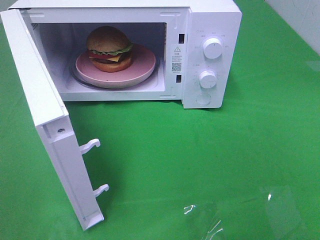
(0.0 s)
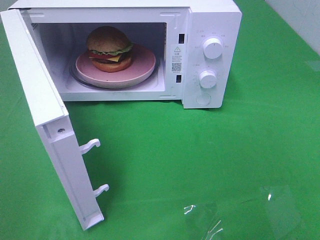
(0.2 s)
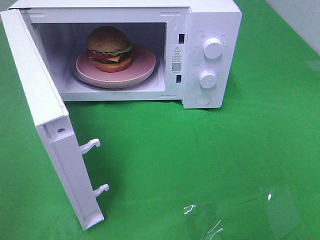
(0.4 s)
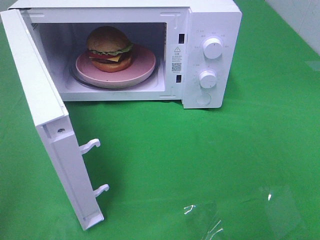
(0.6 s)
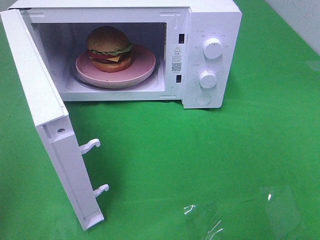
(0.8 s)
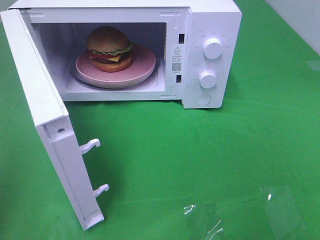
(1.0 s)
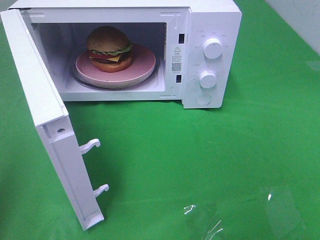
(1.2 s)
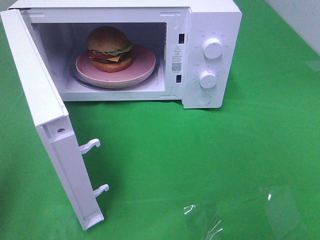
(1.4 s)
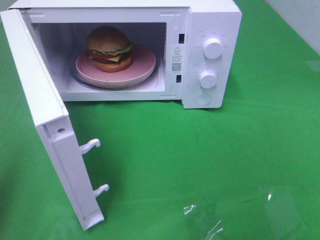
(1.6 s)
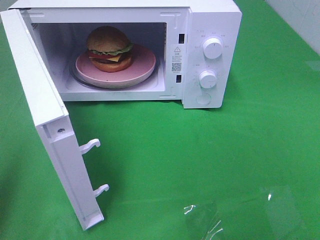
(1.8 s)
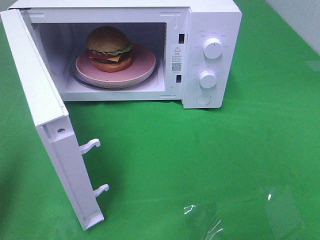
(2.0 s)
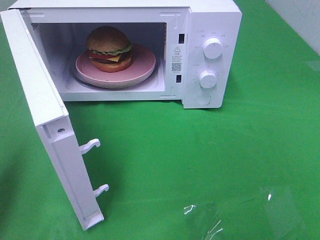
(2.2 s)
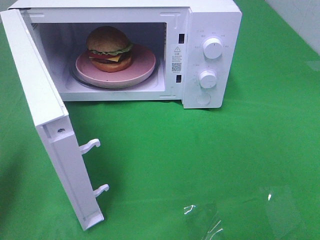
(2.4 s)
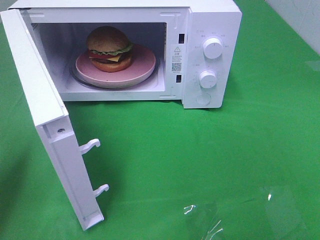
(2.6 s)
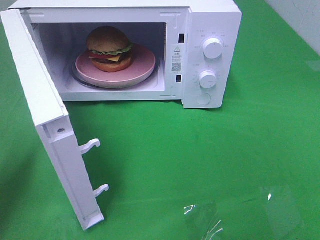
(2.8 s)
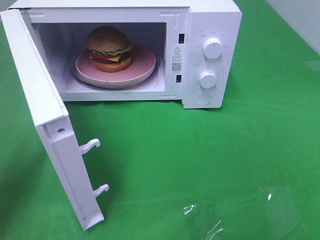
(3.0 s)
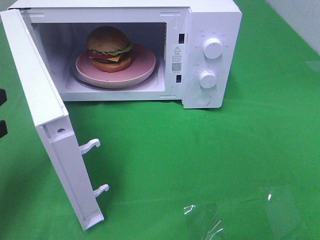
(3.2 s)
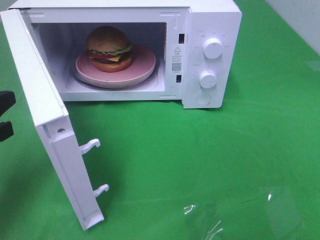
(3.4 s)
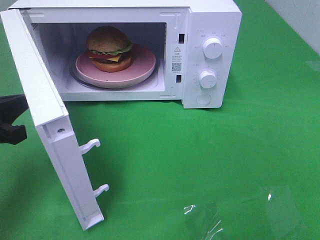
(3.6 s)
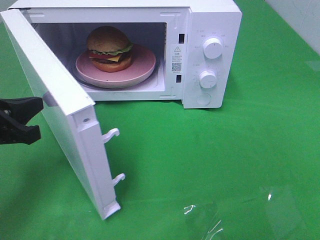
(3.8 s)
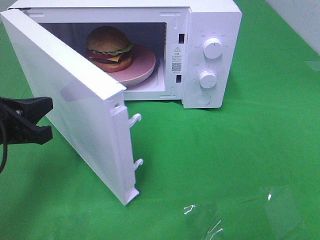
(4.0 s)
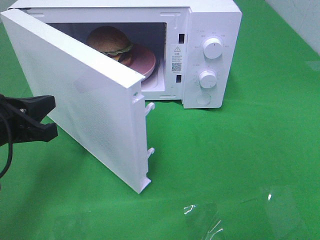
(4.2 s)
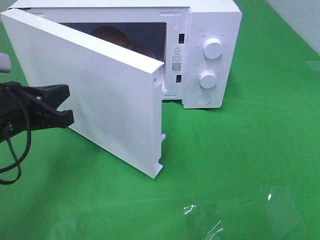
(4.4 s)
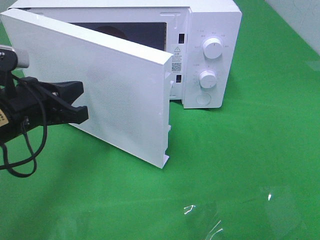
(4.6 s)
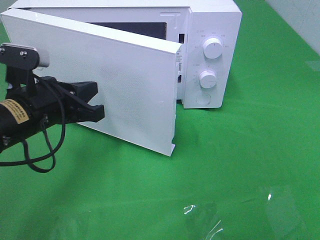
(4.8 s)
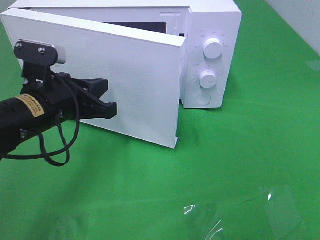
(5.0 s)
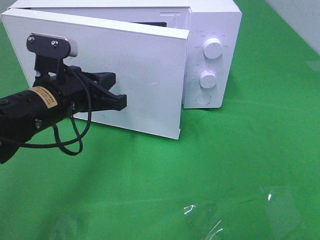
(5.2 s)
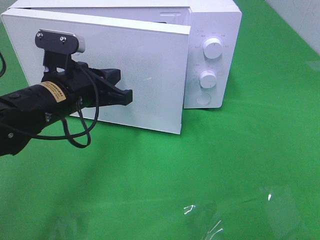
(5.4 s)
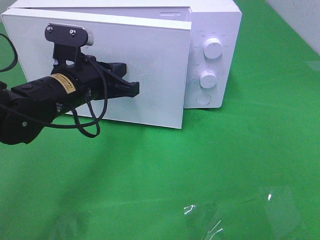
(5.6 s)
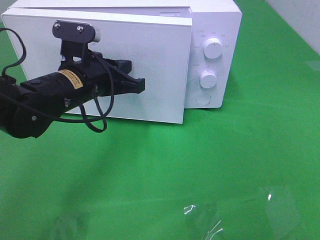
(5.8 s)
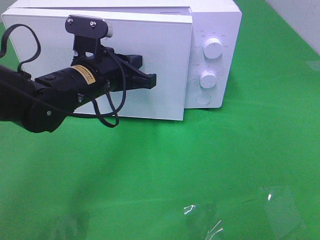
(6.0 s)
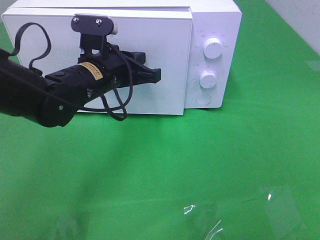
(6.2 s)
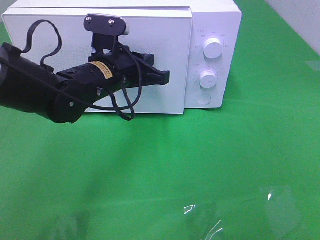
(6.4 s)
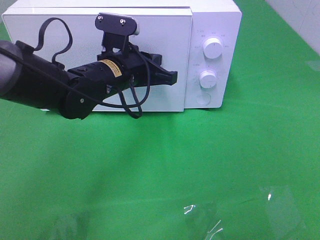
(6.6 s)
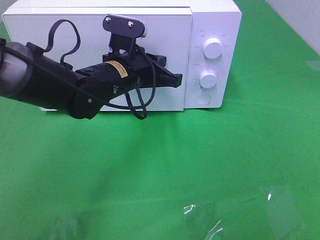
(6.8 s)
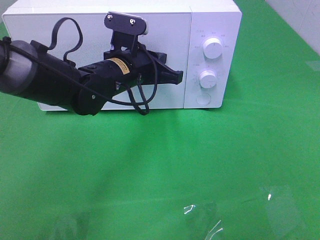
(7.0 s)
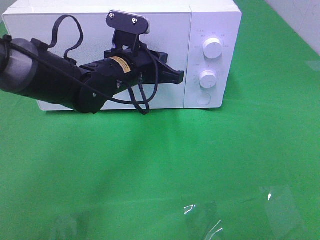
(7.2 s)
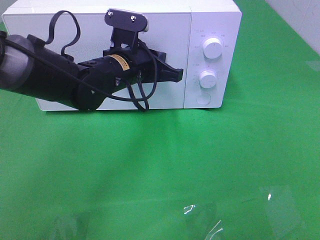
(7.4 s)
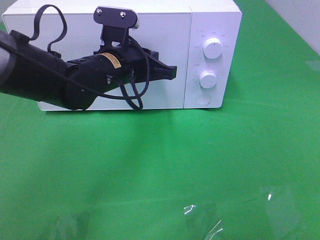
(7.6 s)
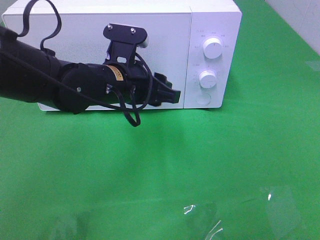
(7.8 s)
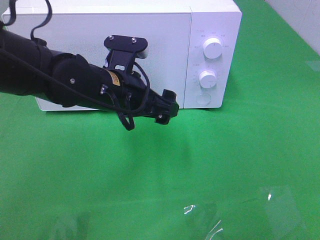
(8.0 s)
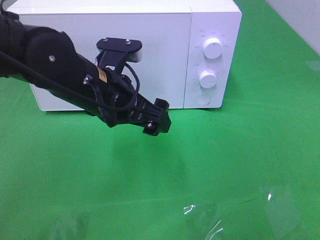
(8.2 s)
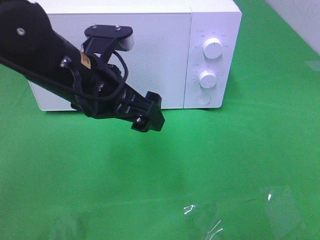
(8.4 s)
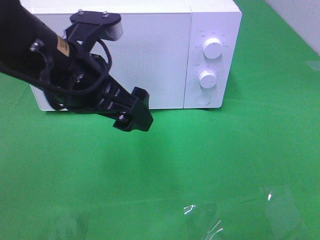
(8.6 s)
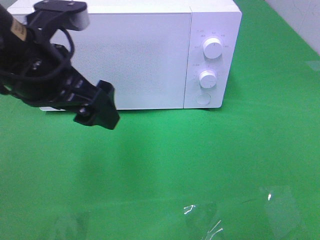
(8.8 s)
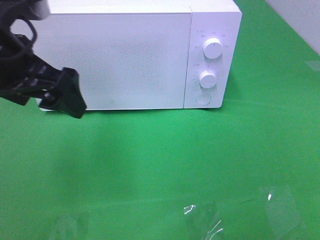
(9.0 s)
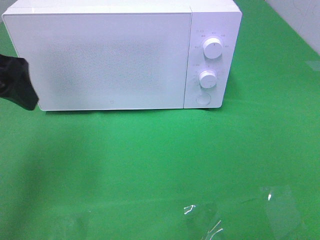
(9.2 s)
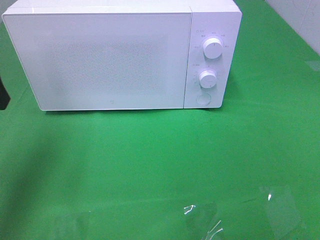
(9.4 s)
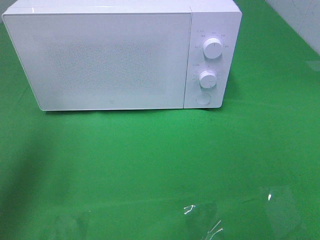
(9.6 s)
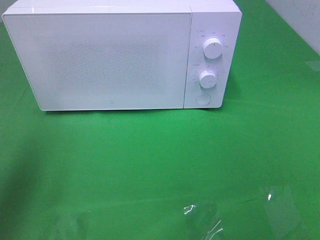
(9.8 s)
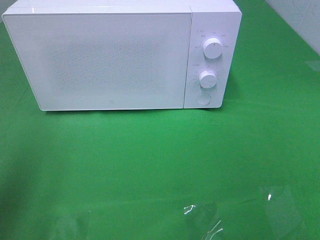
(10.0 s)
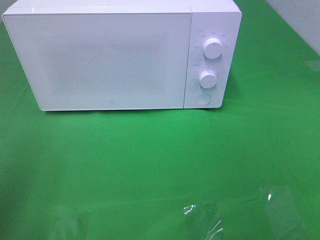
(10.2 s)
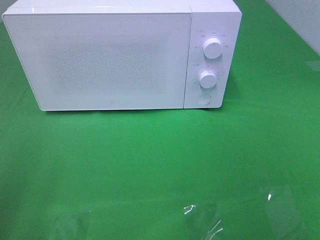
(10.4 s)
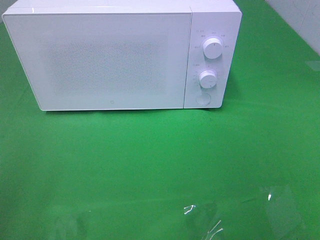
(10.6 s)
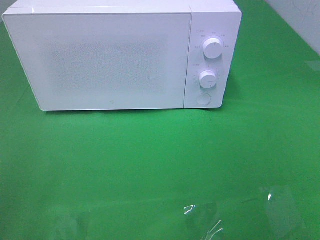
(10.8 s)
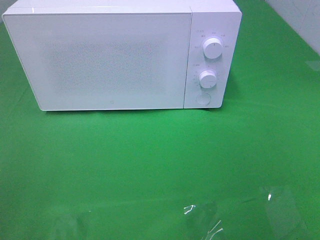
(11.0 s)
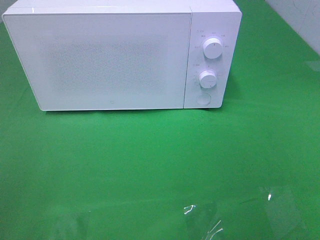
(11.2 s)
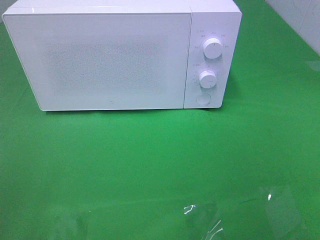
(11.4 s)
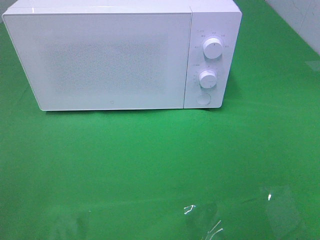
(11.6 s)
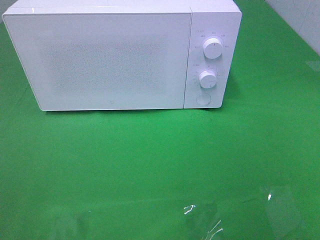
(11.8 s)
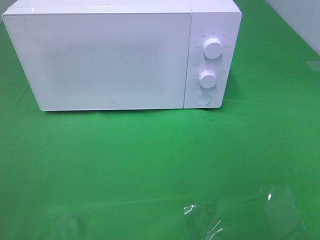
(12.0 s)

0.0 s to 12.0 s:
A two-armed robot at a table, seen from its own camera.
Task of the whole recording: Heat the burger.
Step, 0.0 to 7.8 s: Left hand: close the microwave door.
1.6 to 3.0 s: The left gripper travels forward and downward by approximately 10 cm.
3.0 to 4.4 s: The left gripper goes approximately 10 cm to the right.
4.4 to 6.0 s: The left gripper goes approximately 15 cm to the right and forward.
6.0 to 7.6 s: The grippers move only a little.
7.6 to 9.0 s: The left gripper travels to the left, upward and backward by about 20 cm, and opens up.
9.0 to 10.4 s: The left gripper heads backward and to the left, covering roughly 20 cm.

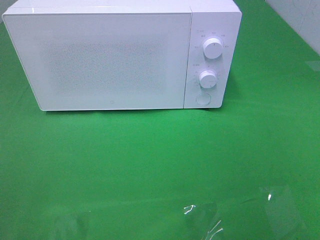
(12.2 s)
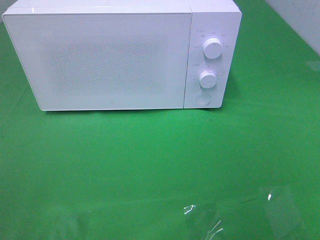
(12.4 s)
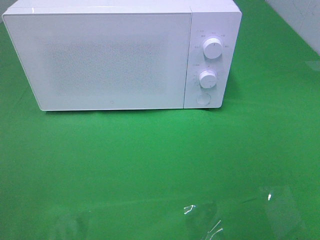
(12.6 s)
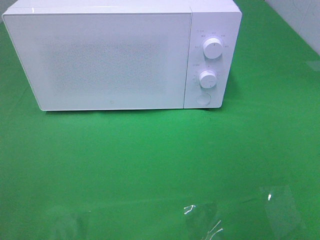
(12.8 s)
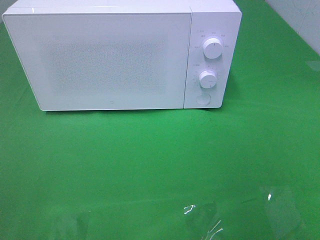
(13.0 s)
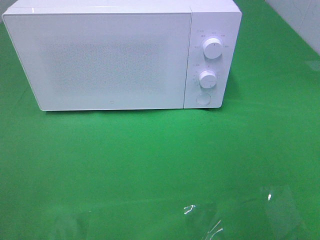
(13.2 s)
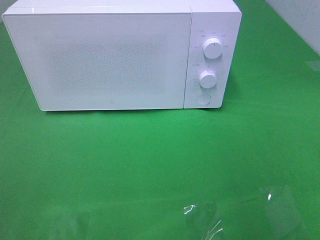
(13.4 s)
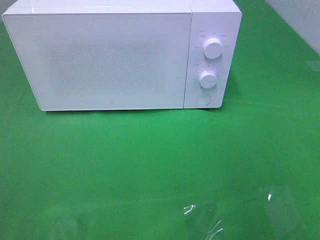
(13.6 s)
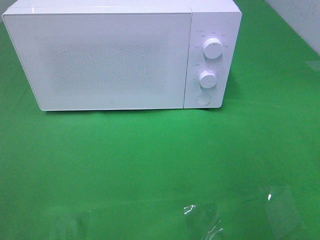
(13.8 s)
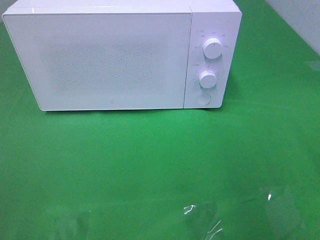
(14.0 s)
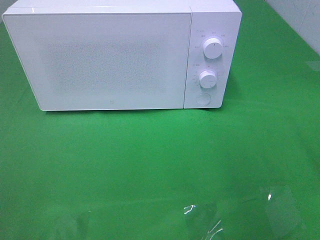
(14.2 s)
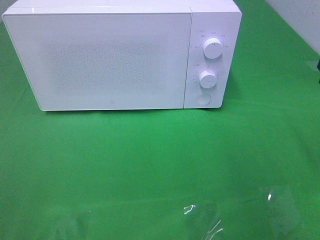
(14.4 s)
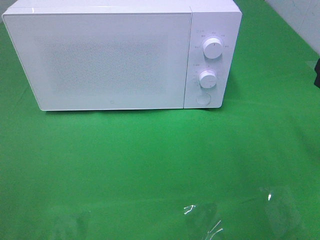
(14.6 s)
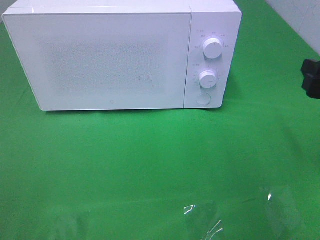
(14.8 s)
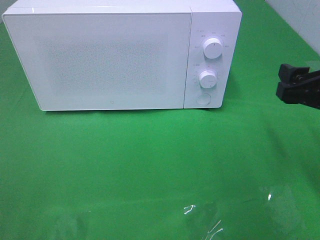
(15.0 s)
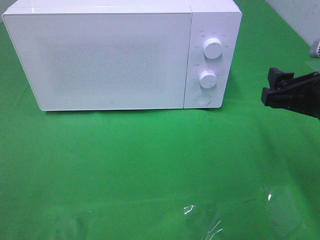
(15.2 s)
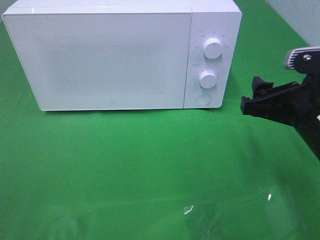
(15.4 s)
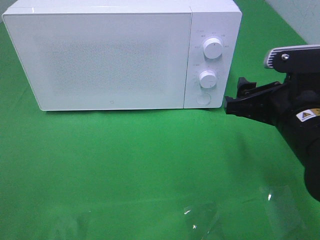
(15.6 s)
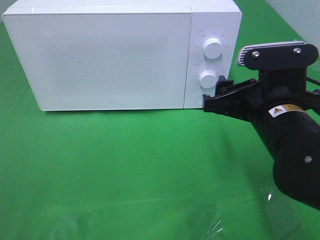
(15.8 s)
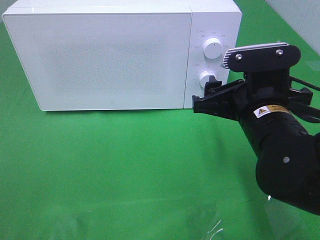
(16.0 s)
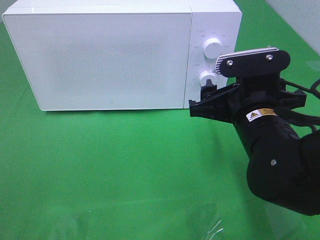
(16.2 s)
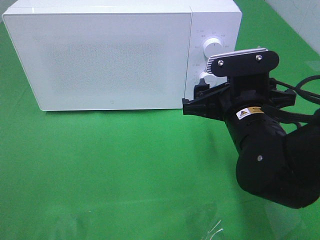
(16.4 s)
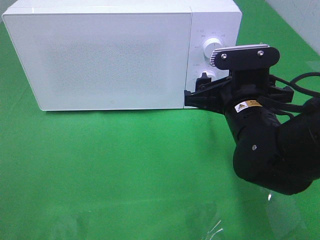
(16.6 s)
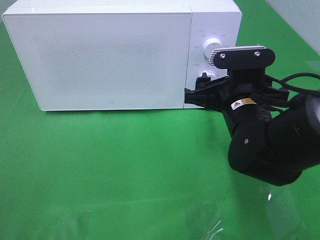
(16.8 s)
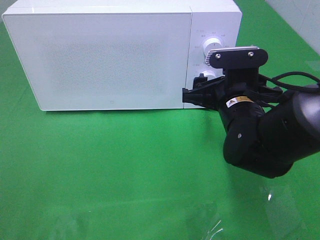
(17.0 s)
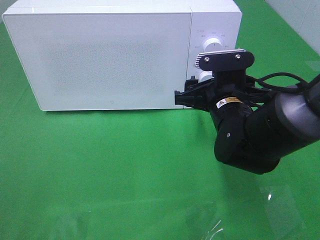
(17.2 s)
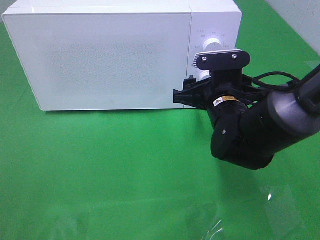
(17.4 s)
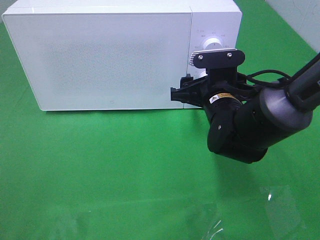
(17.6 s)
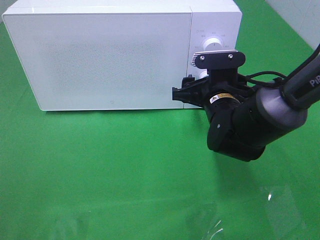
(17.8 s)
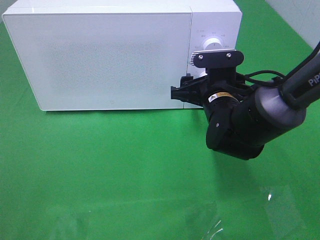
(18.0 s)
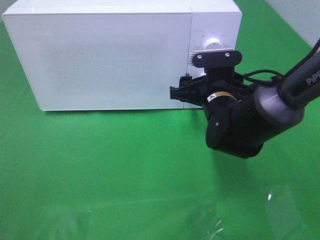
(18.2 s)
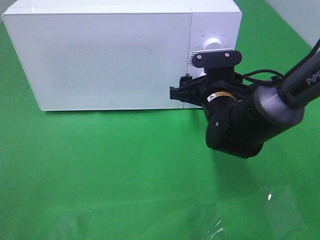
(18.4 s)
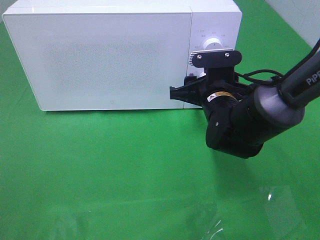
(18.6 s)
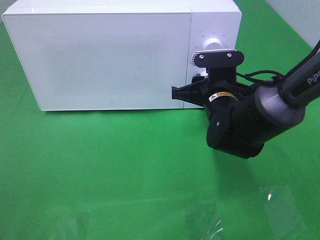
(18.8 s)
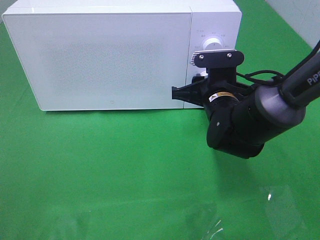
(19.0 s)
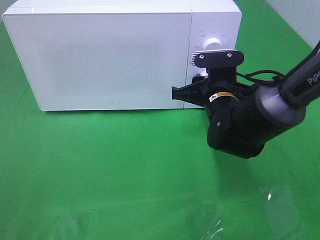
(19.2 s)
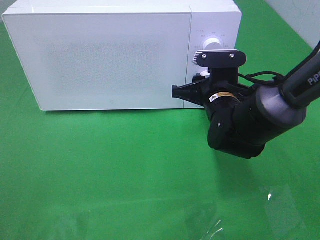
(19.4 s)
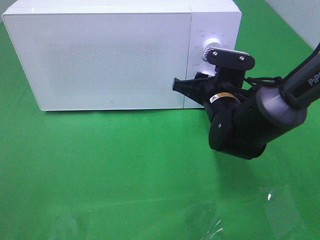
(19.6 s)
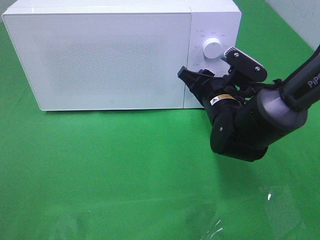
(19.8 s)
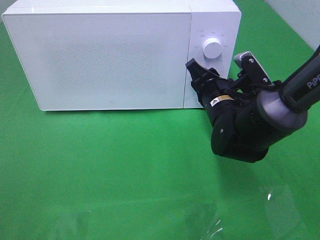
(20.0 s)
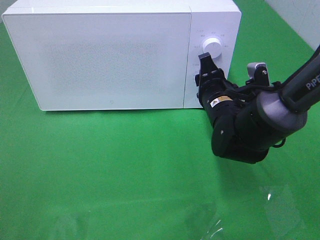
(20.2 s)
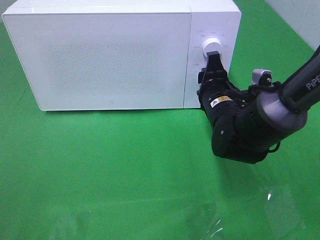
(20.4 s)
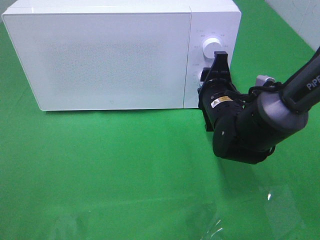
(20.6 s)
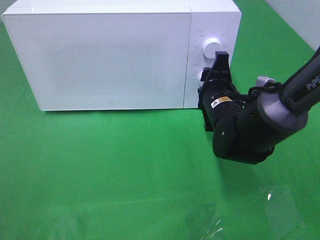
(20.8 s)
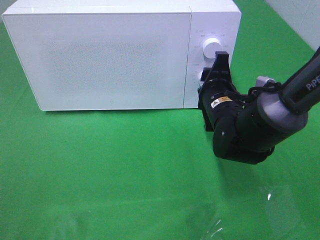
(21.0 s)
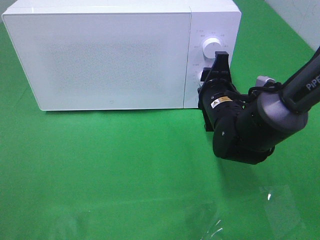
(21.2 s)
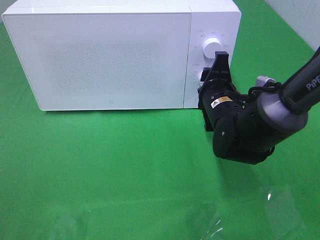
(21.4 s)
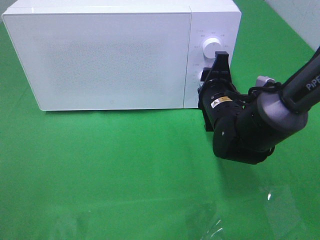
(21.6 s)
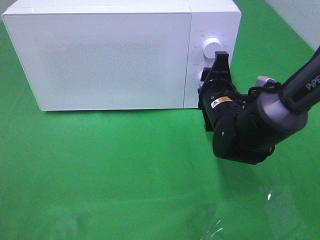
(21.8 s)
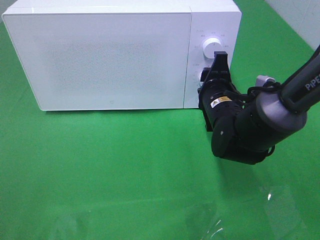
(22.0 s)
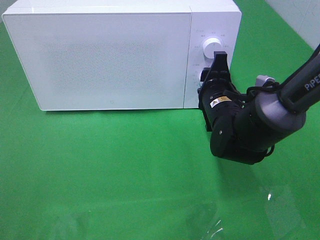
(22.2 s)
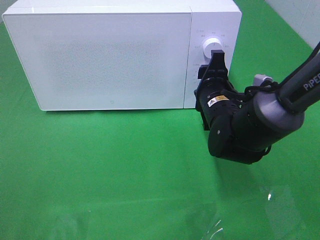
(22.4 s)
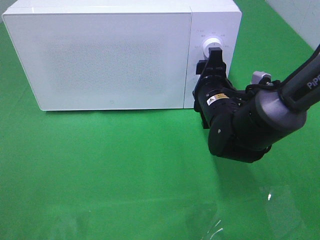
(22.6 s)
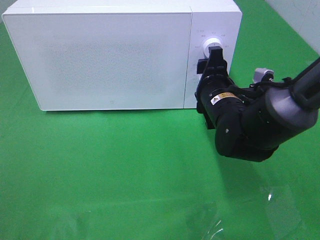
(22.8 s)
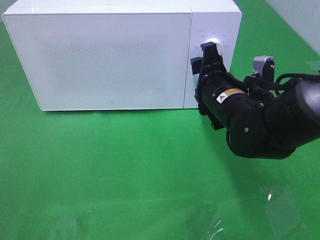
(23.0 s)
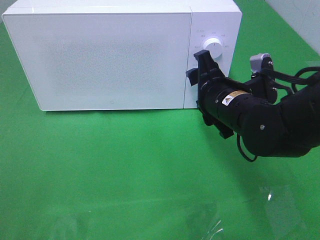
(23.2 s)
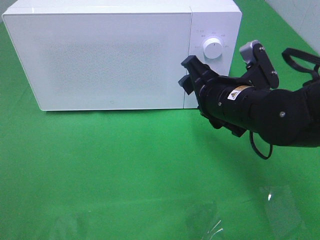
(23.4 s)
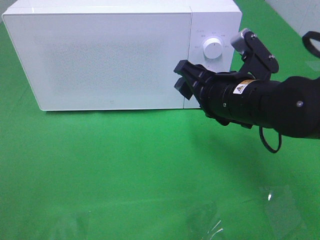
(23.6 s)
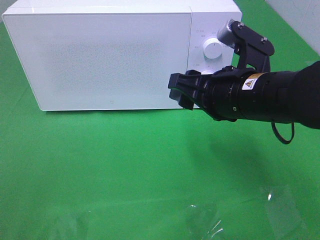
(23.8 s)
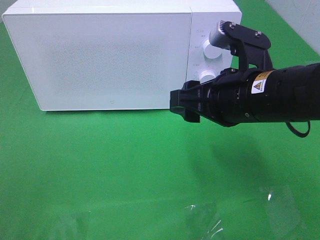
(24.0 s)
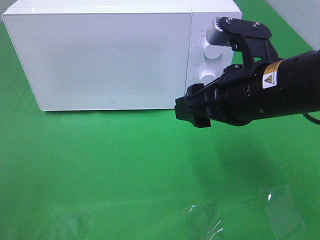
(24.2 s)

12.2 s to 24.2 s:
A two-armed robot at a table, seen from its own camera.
Task of the whole recording: Heat the burger.
Step, 12.2 to 22.8 s: Right hand: twist timer button.
13.8 to 15.2 s: The right gripper is displaced forward, downward and to the left by approximately 15 cm.
15.2 to 16.6 s: The right gripper heads to the left, covering some 10 cm.
16.6 to 18.2 s: The right gripper moves forward, approximately 10 cm.
18.2 to 19.8 s: The right gripper closes.
21.2 to 22.6 s: Both grippers stay about where they are.
22.6 to 24.2 s: The right gripper moves upward and backward, roughly 15 cm.
